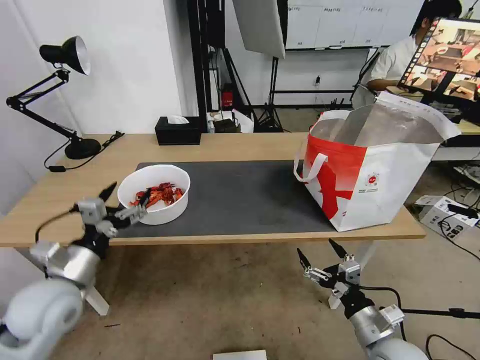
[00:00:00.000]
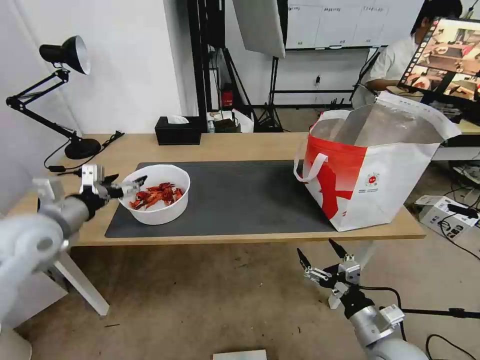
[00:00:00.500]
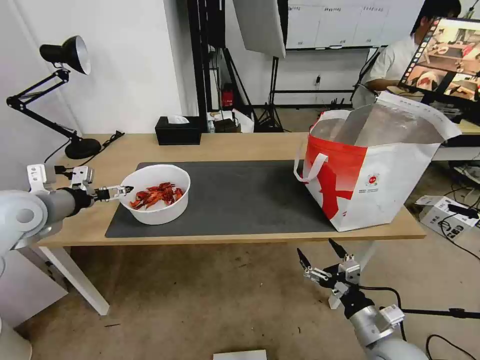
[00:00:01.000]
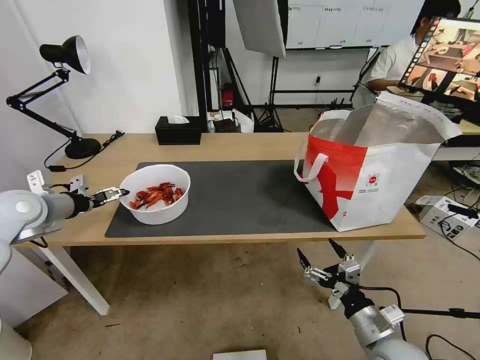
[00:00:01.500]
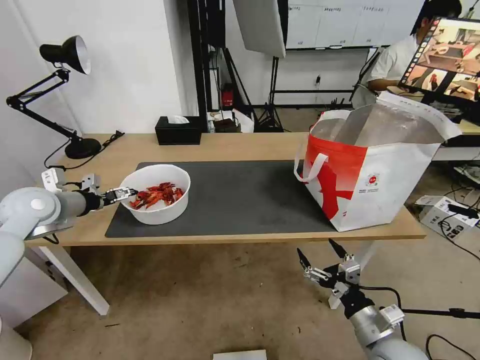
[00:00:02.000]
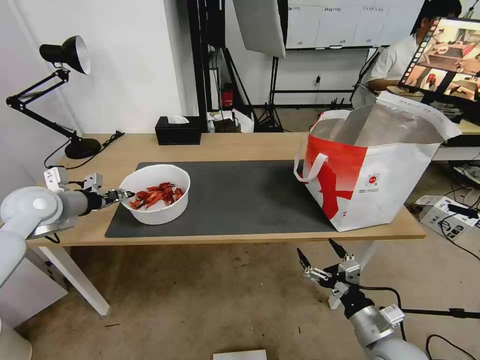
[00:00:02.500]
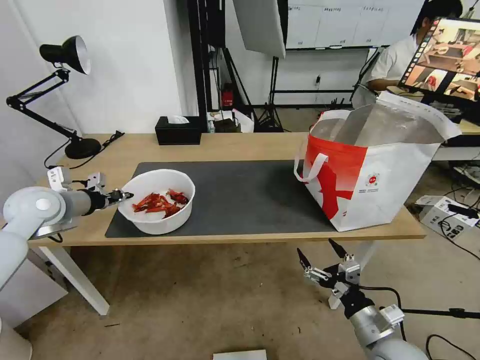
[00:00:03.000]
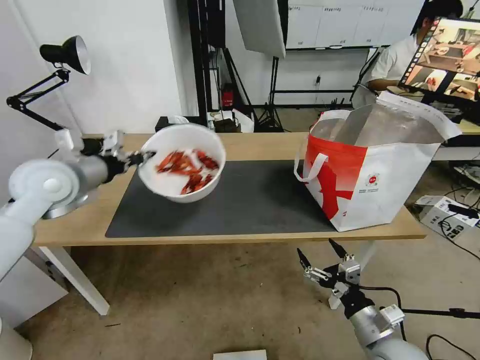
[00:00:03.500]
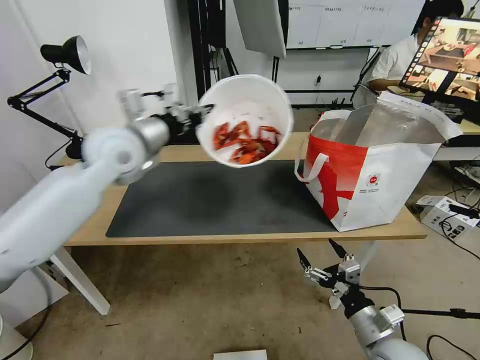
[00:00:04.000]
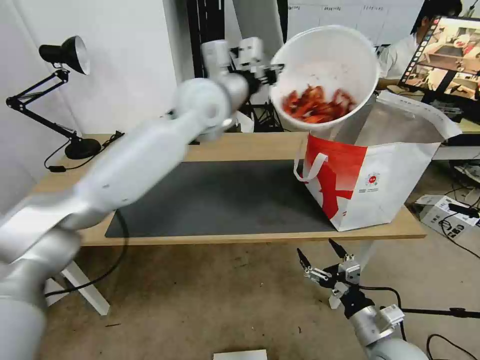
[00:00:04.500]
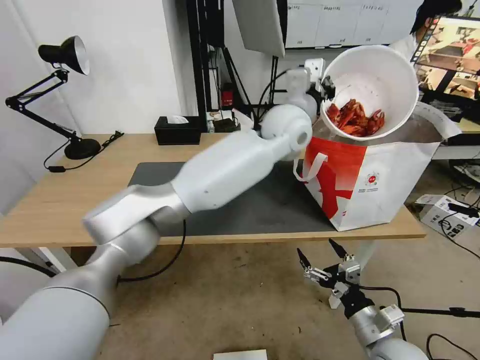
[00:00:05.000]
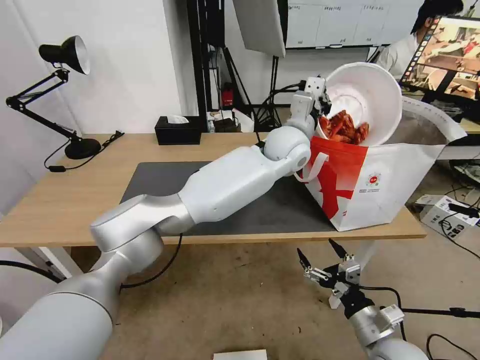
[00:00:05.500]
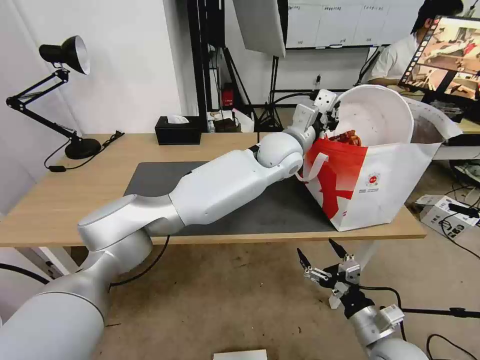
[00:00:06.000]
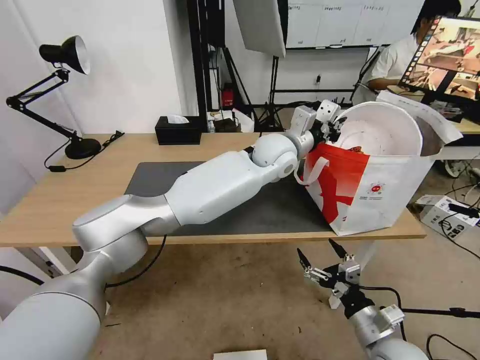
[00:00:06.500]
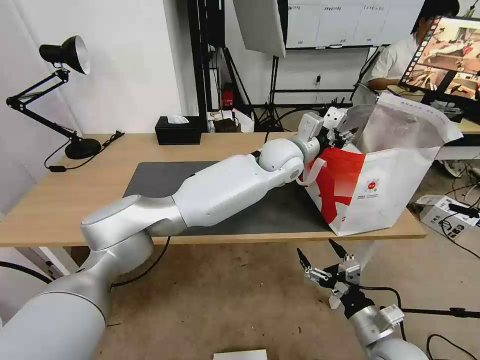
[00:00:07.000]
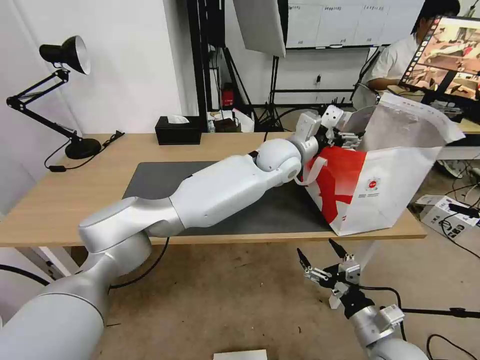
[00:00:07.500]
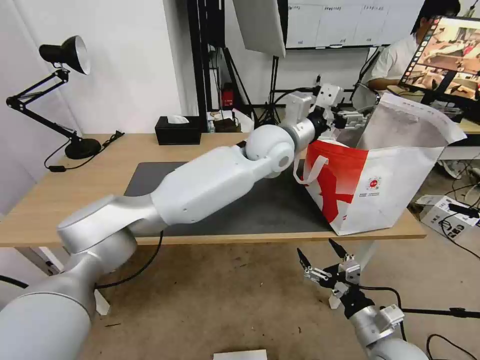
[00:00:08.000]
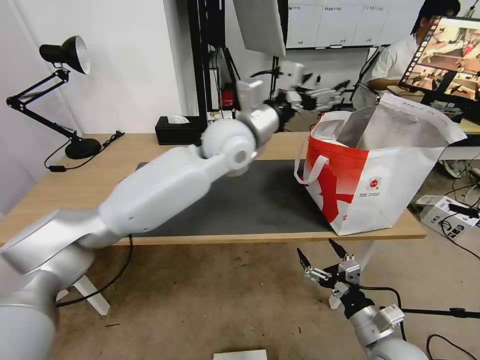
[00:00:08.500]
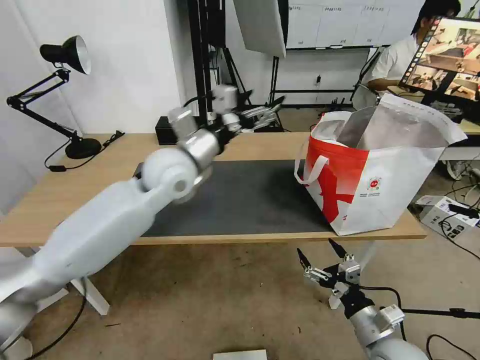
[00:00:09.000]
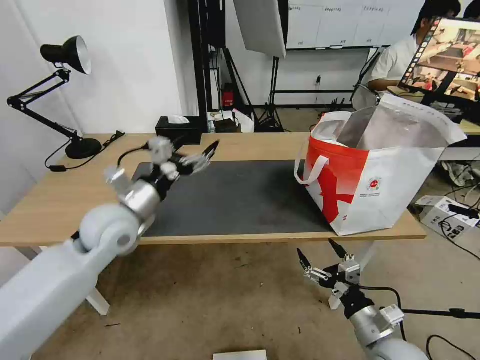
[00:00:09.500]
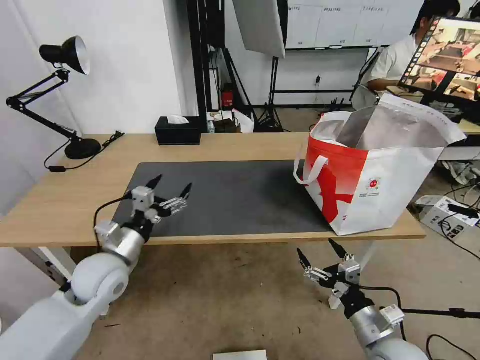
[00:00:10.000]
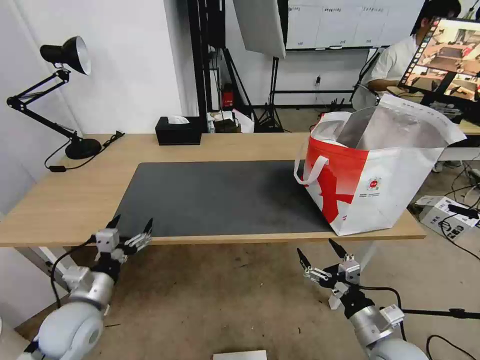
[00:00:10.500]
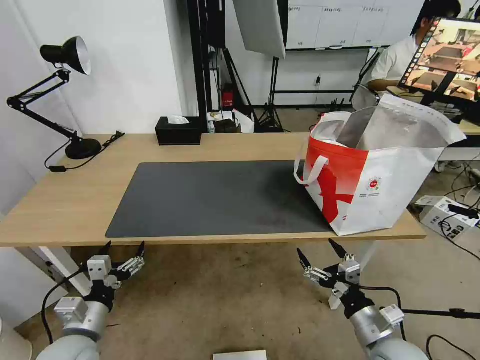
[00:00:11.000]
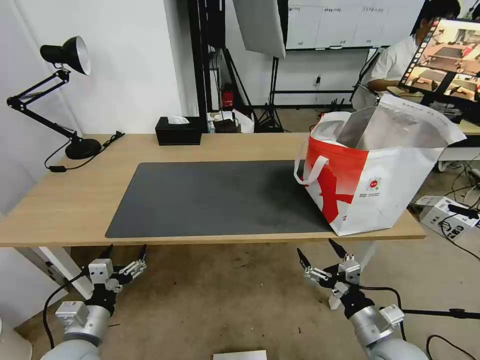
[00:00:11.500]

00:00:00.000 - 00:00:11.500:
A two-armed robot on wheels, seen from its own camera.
Task of the whole recording: Pick up the trash from the table and place it into the takeout bag.
00:00:00.000 - 00:00:02.000: The left gripper goes roughly 20 cm forward and to the left.
00:00:02.000 - 00:00:04.000: The left gripper moves to the right and upward, roughly 25 cm, and closes its fingers.
00:00:04.000 - 00:00:06.000: The left gripper travels to the right by approximately 30 cm.
00:00:06.000 - 00:00:07.500: The left gripper opens up.
00:00:07.500 - 00:00:09.500: The left gripper moves to the left and backward, some 35 cm.
00:00:09.500 - 00:00:11.500: The left gripper travels backward and downward by roughly 25 cm.
